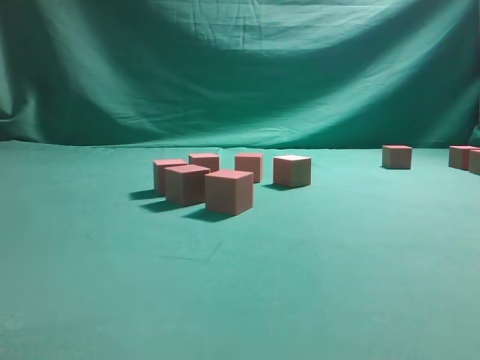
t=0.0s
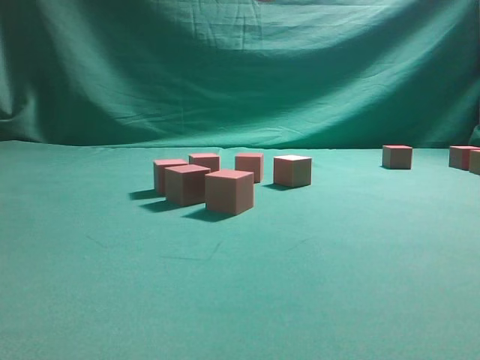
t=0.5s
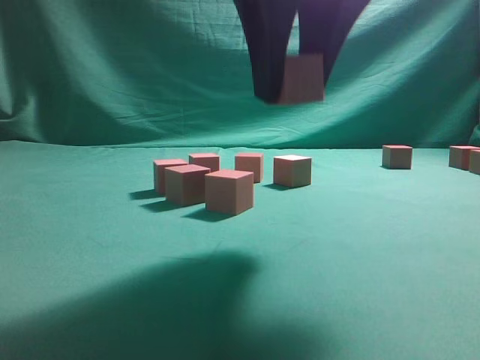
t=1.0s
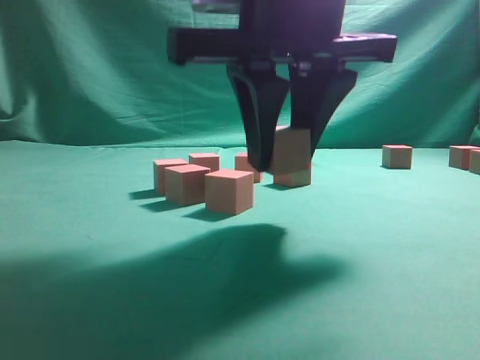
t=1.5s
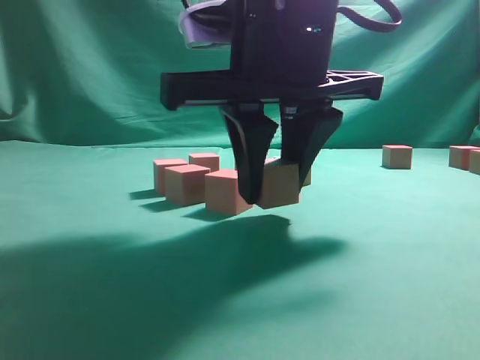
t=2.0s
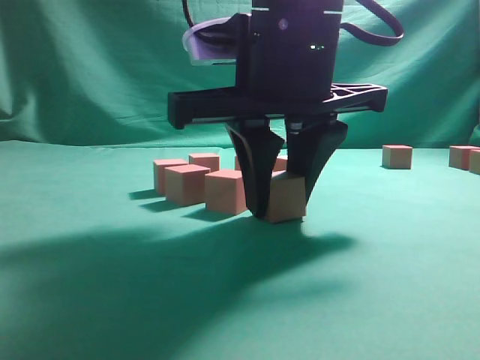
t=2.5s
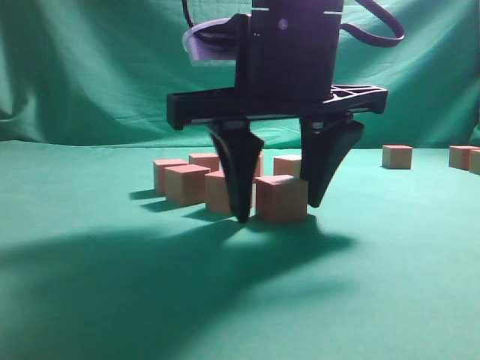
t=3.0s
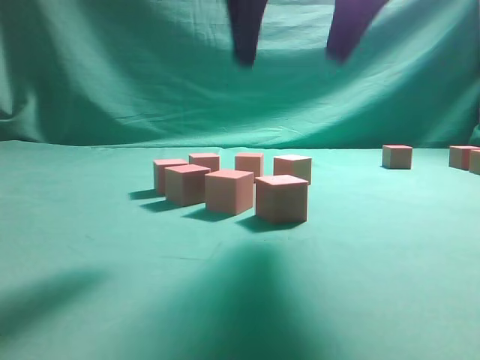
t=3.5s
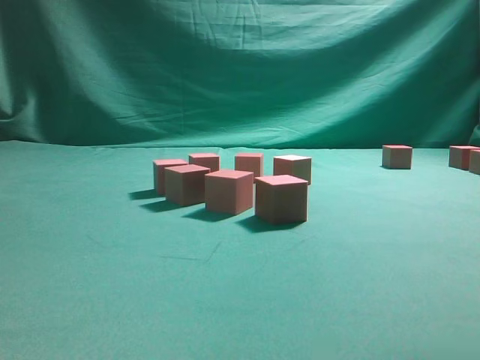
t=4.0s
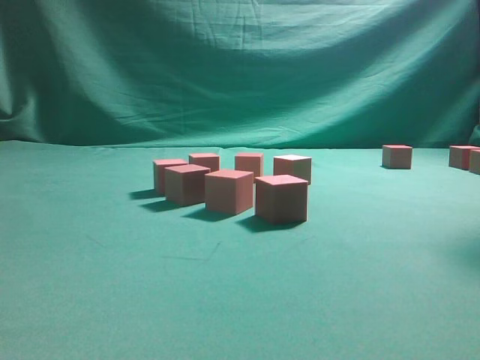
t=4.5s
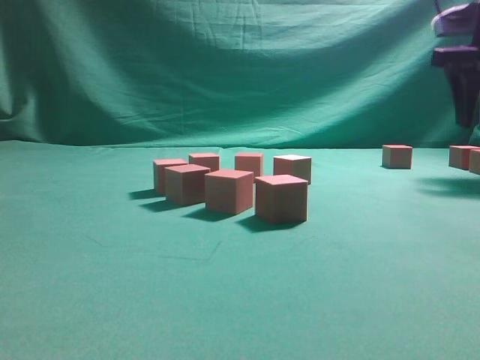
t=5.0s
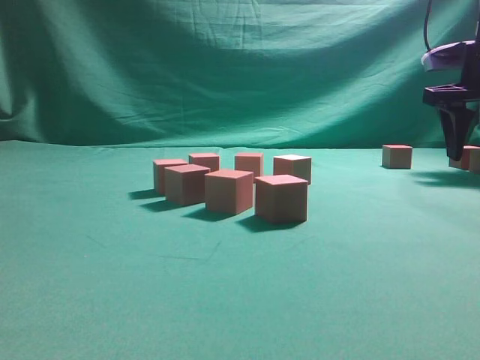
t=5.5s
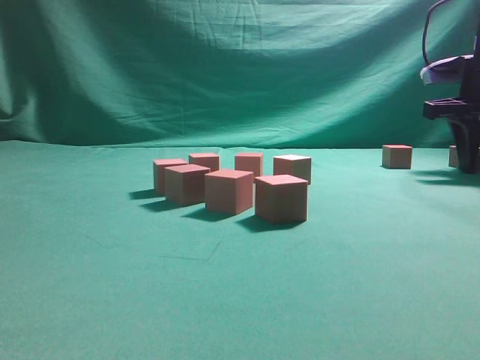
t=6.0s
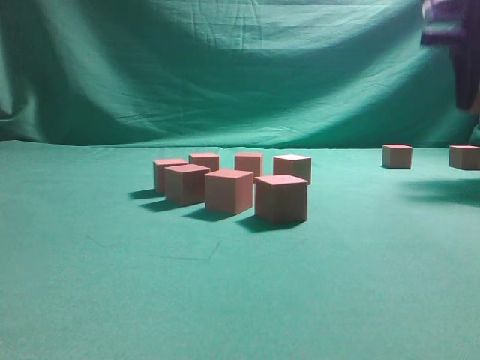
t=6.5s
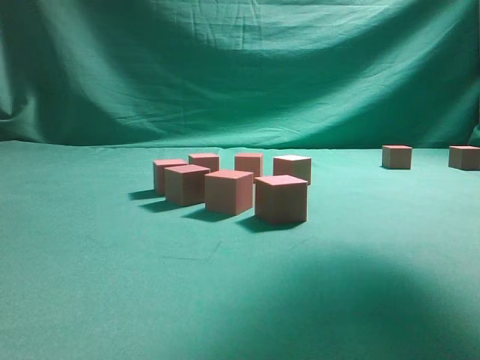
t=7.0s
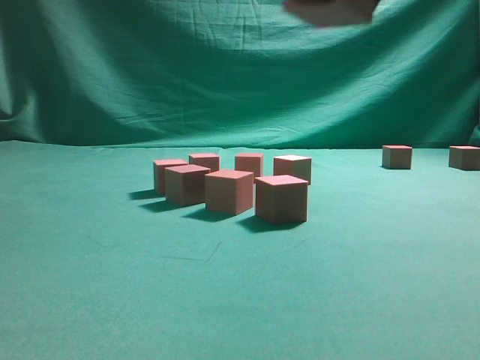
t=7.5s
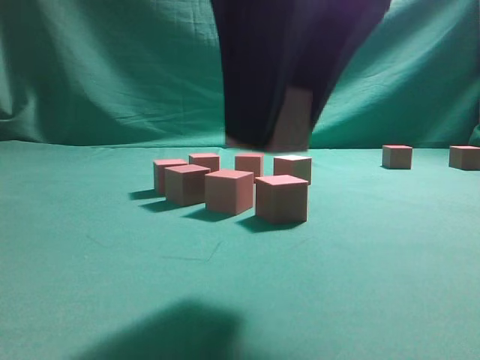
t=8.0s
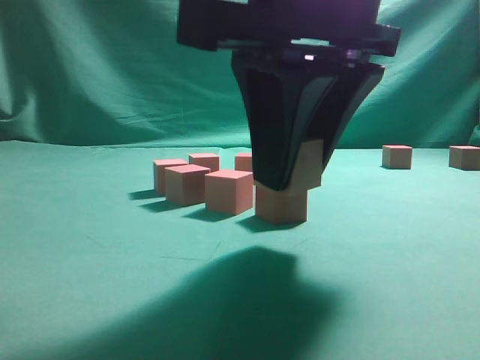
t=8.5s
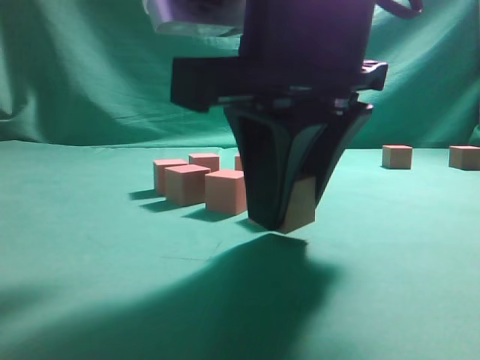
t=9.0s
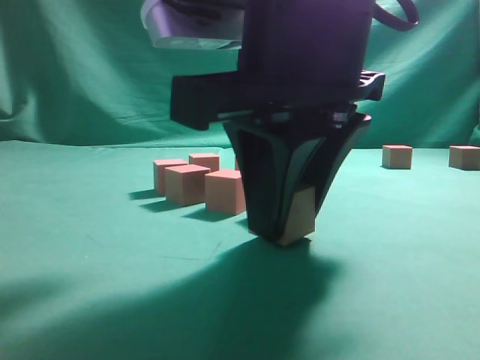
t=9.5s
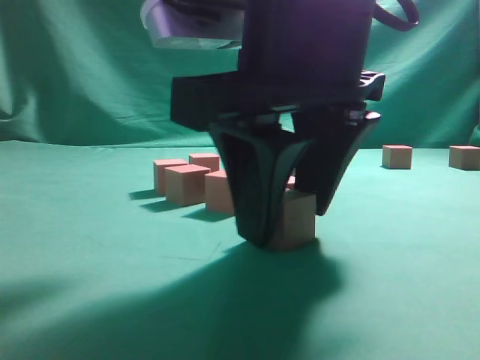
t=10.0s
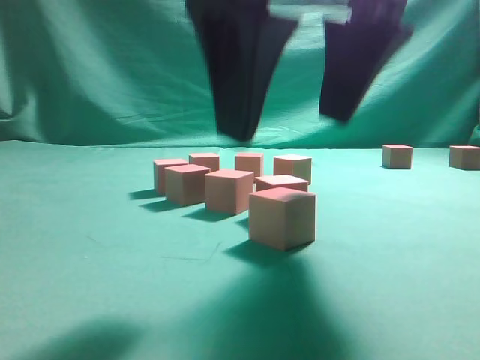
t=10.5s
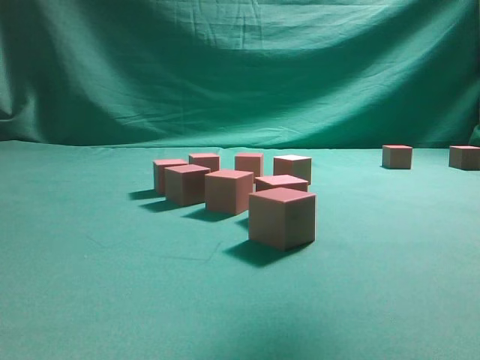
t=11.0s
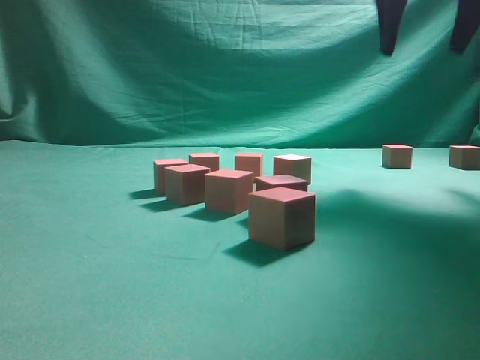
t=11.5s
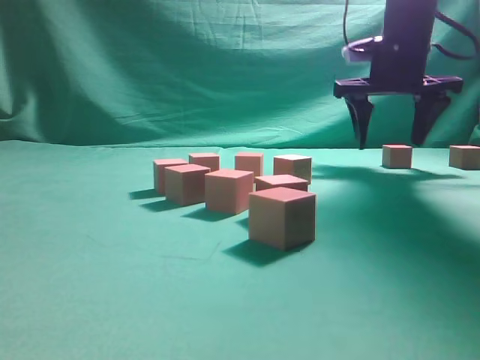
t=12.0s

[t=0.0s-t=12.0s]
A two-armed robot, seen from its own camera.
Task of the whole recording: pick up the multiple cubes in two columns one by one and place them in another position on the table.
Step, t=0.0s to t=3.0s: Place the block at the correct position to assemble the letter S.
Step, t=3.5s to t=6.5s: Pick up the block on the table.
Step, t=7.0s to t=10.5s: Place the block at the correct position to assemble the letter S.
t=0.0s to t=2.0s: The right gripper goes some 20 cm downward.
t=2.0s to t=4.0s: The right gripper moves upward and to the right, roughly 25 cm, and opens up.
t=4.0s to t=6.0s: The right gripper goes some 30 cm downward and forward, and closes.
t=6.0s to t=8.0s: The right gripper moves backward and to the left, approximately 40 cm.
t=8.0s to t=10.0s: The right gripper goes approximately 5 cm downward.
t=10.0s to t=12.0s: The right gripper is displaced forward and to the right by approximately 35 cm.

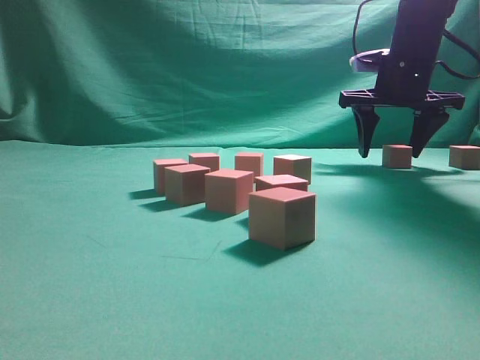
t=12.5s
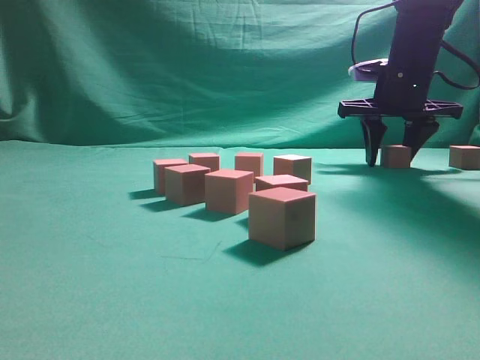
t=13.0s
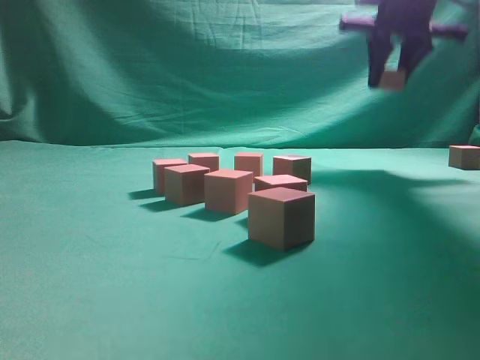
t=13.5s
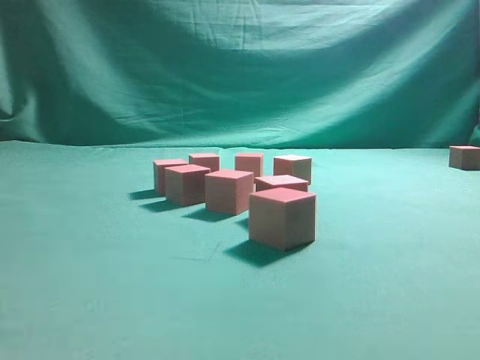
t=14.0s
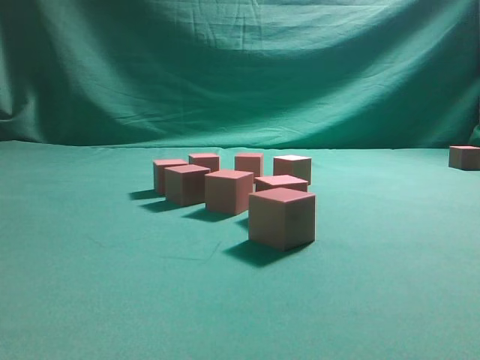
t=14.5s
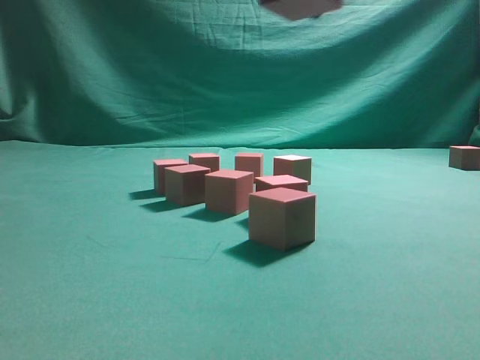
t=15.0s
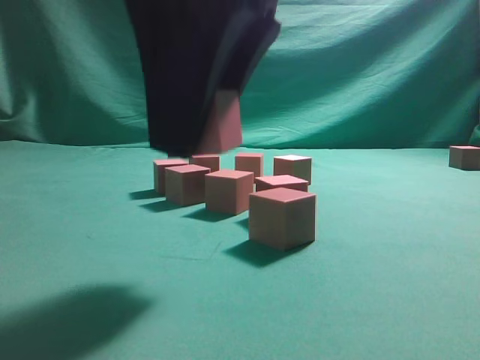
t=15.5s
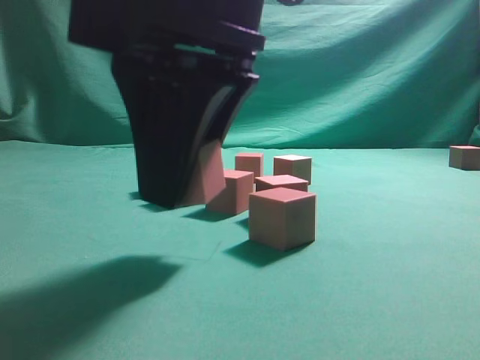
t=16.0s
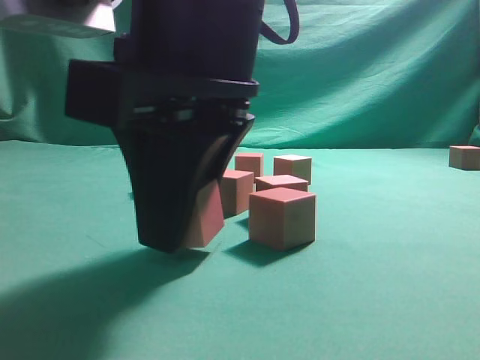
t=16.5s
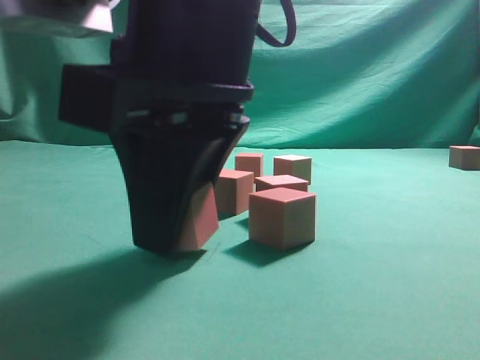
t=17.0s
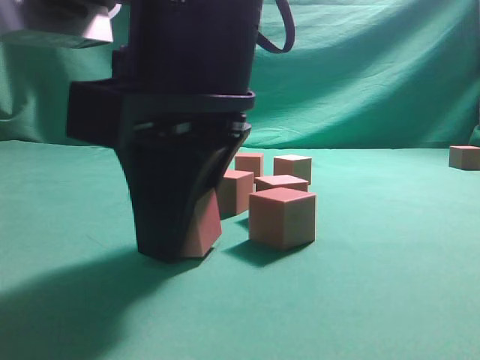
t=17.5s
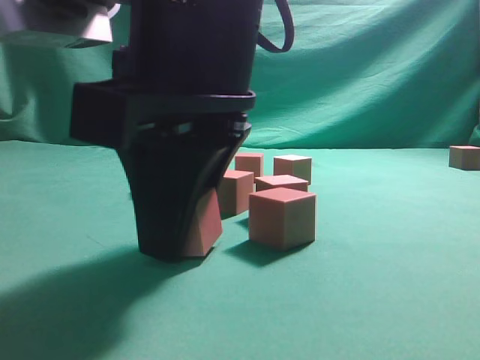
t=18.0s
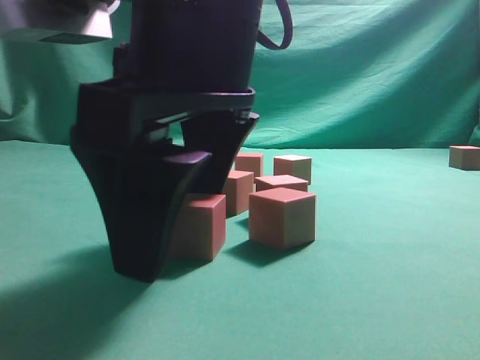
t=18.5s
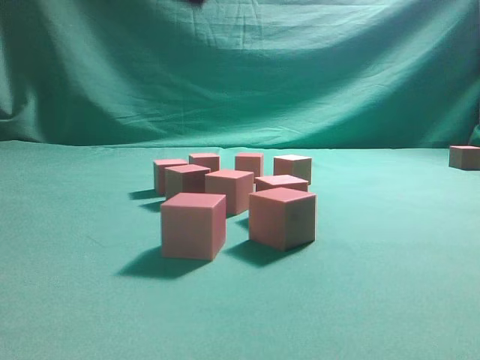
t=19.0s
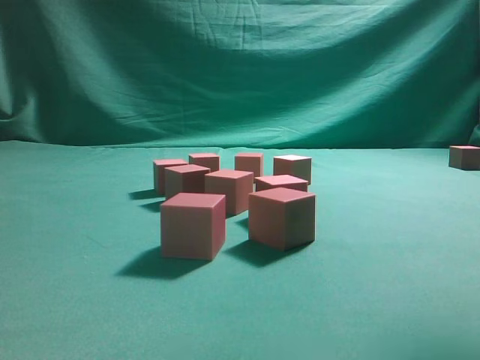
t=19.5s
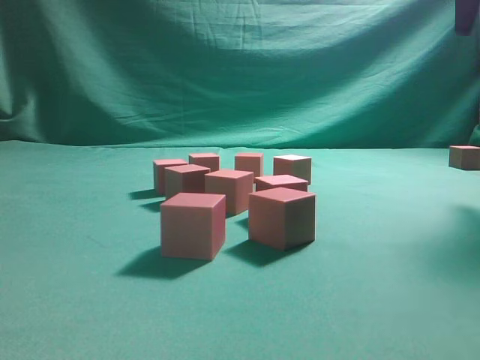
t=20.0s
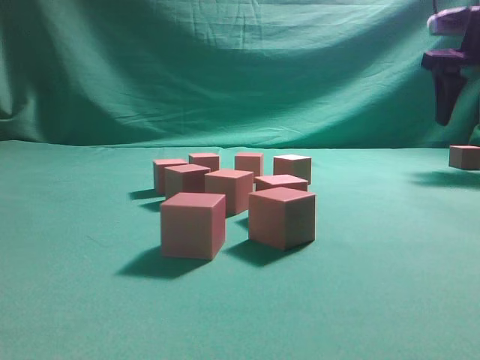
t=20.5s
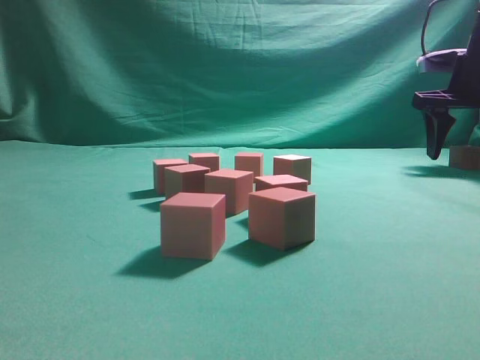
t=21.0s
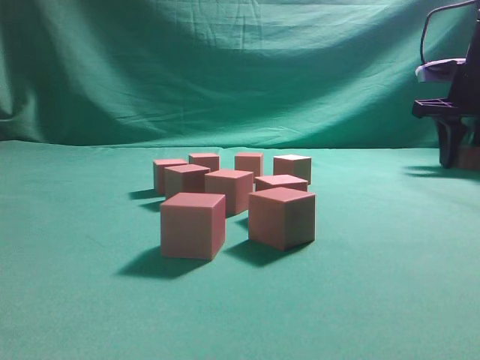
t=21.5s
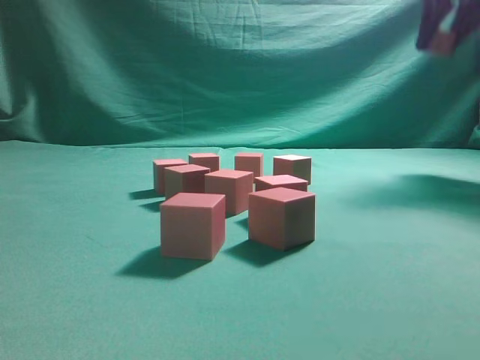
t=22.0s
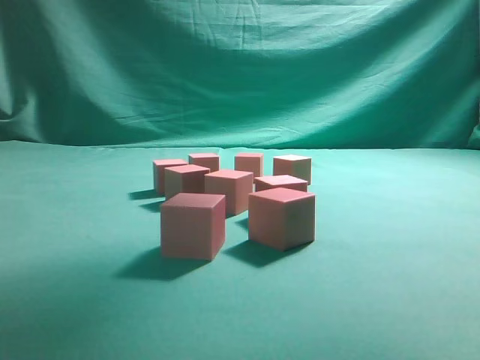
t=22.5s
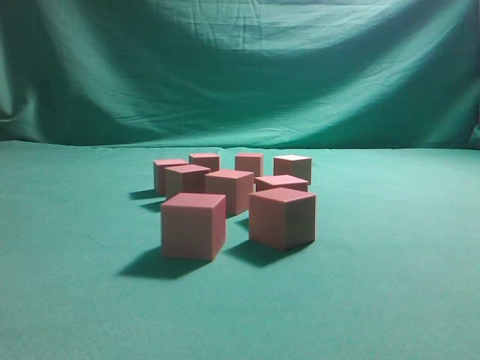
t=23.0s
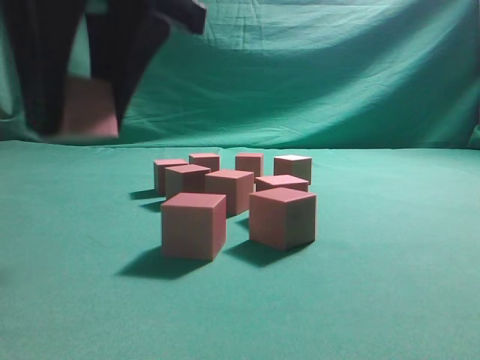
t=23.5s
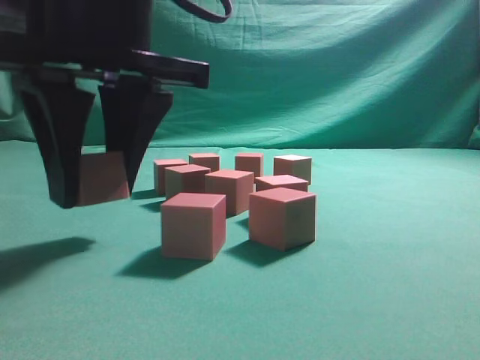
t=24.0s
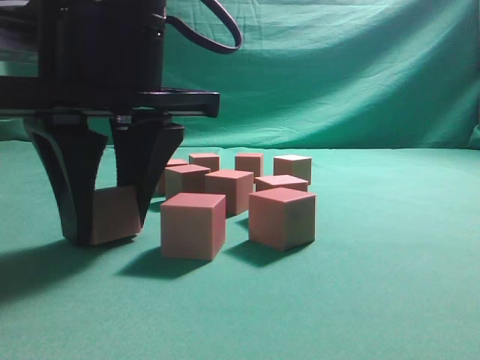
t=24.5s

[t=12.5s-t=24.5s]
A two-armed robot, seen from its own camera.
Task of the whole recording: pick up the multiple cubes in two columns one by one and place them in another position on the table.
Step, t=13.5s to t=18.5s: Place the block at the correct position to assemble the letter S.
Step, t=19.0s to t=21.5s: Pick up the block on the table.
t=12.5s to t=14.5s: The right gripper goes roughly 35 cm backward, upward and to the left, and closes up.
t=14.5s to t=16.5s: The right gripper is displaced downward and to the left by approximately 25 cm.
t=16.5s to t=18.5s: The right gripper opens its fingers.
t=18.5s to t=20.5s: The right gripper heads to the right and forward, covering some 40 cm.
t=20.5s to t=22.5s: The right gripper moves upward, to the left and backward, roughly 30 cm, and closes its fingers.
t=22.5s to t=24.5s: The right gripper moves downward, to the left and backward, approximately 35 cm.

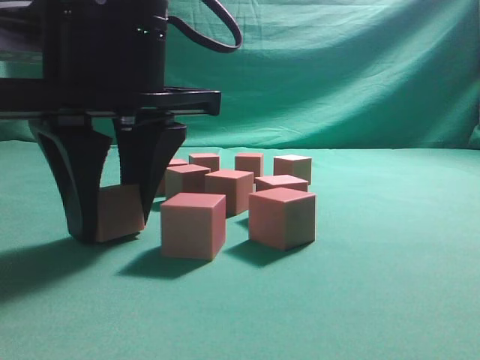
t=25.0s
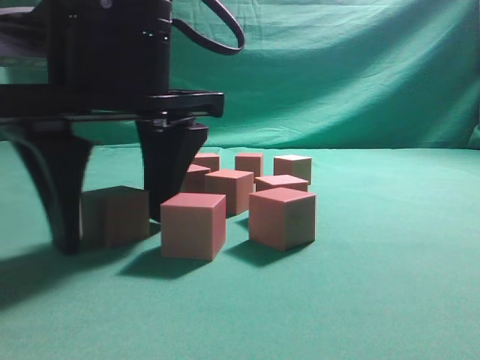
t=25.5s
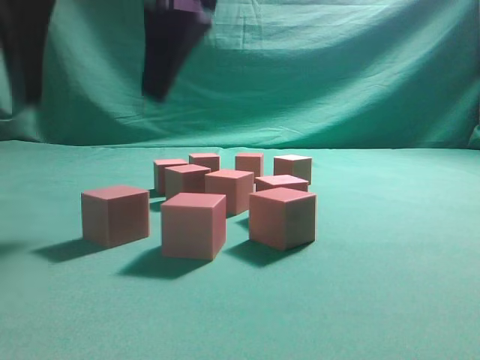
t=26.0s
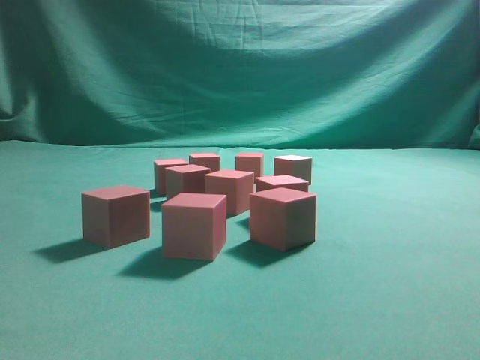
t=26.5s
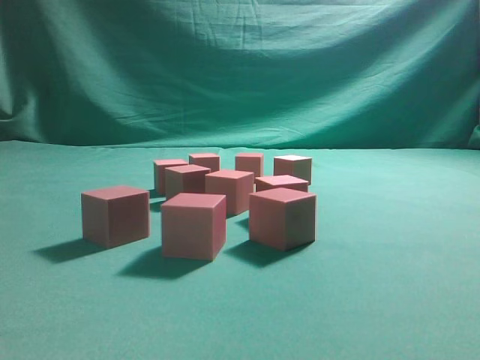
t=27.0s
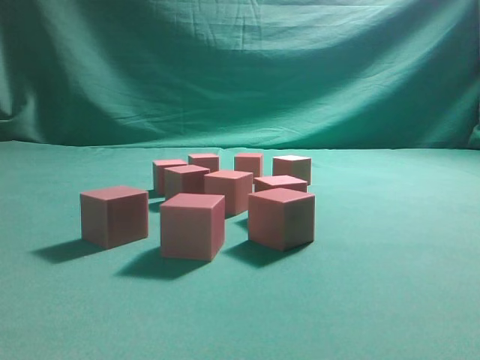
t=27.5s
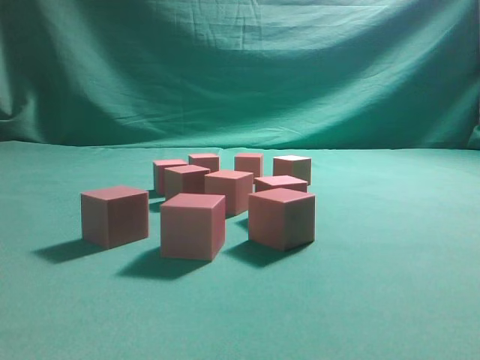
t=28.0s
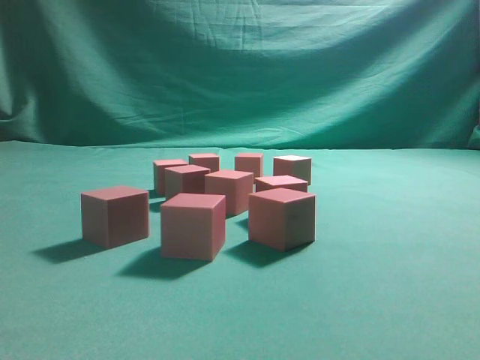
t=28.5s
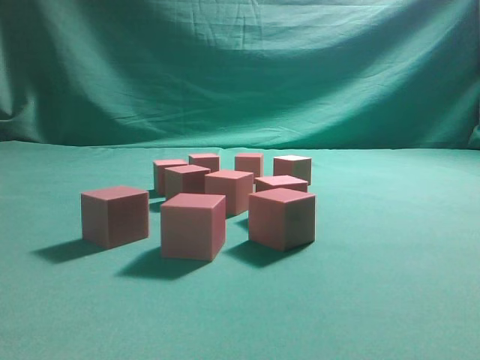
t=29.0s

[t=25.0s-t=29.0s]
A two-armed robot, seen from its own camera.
Task of the whole recording: pick up the multiple cubes in two columns one by one and place them in another position on the table.
t=25.0s to t=27.0s: The right gripper is displaced upward and to the right by roughly 40 cm, and closes.
